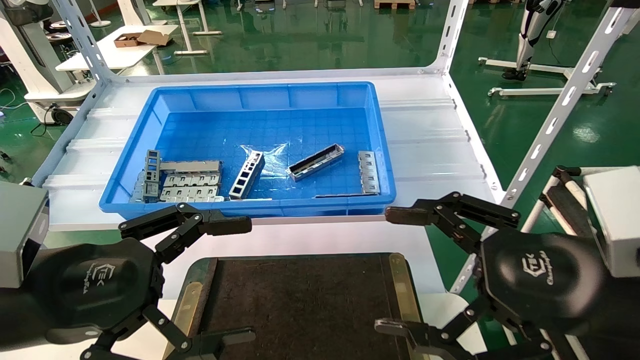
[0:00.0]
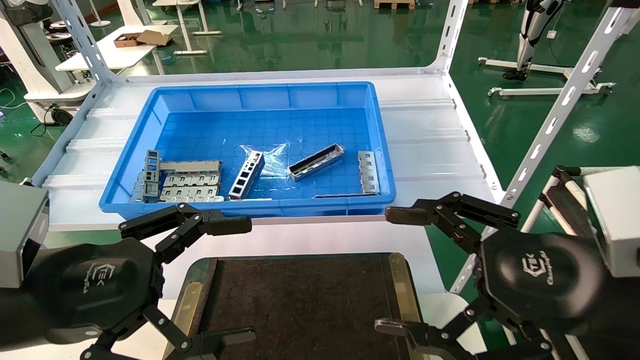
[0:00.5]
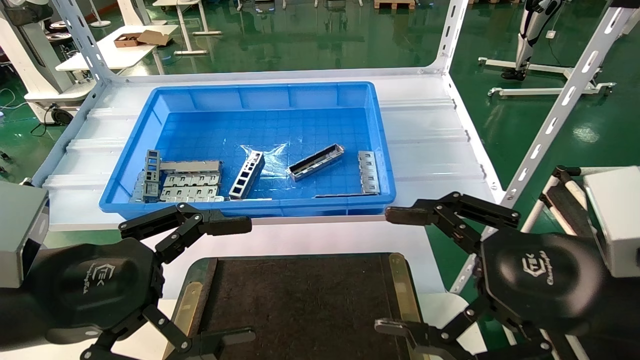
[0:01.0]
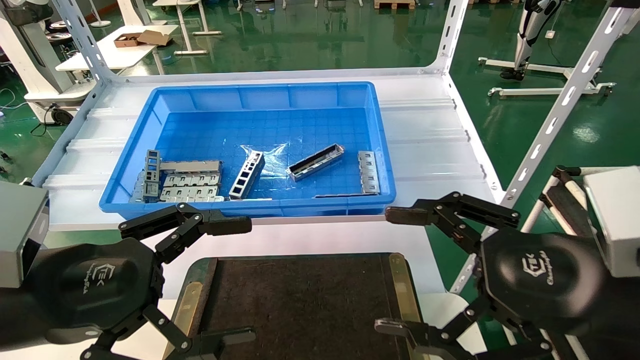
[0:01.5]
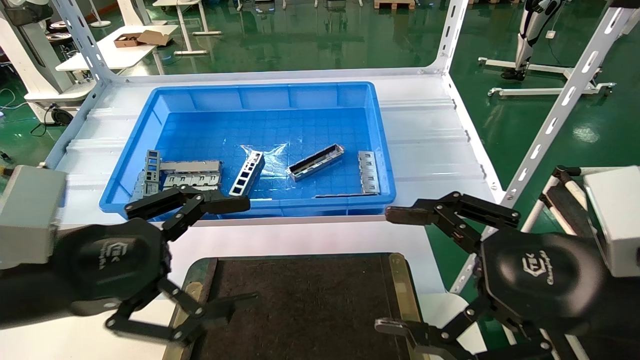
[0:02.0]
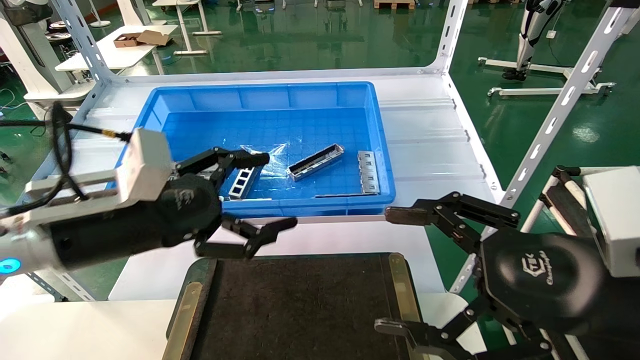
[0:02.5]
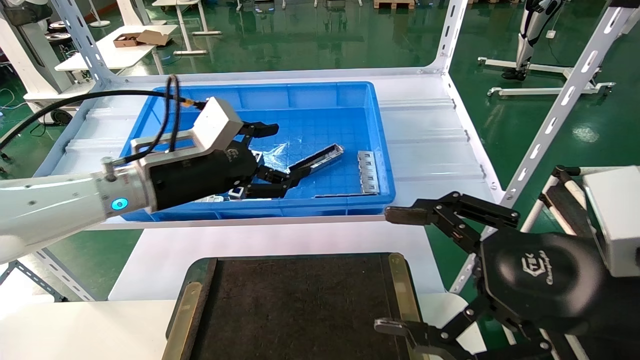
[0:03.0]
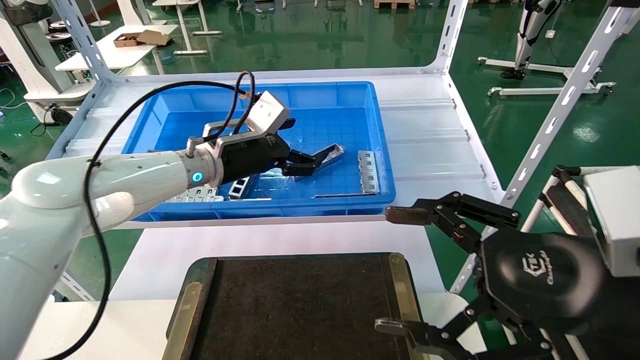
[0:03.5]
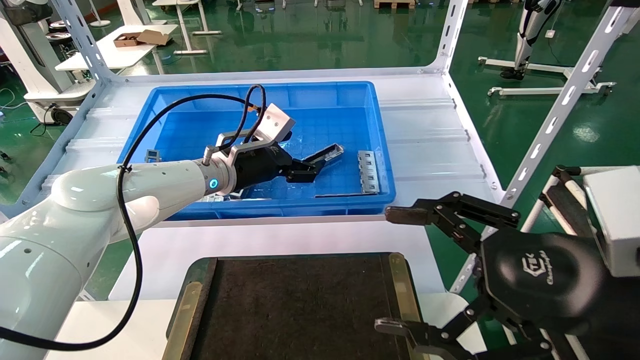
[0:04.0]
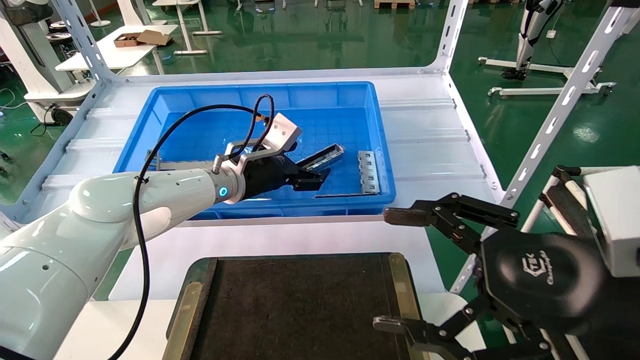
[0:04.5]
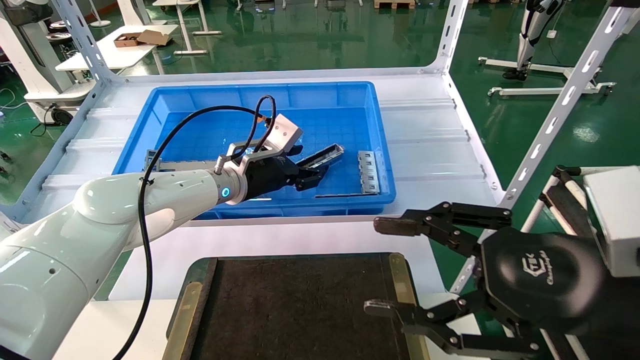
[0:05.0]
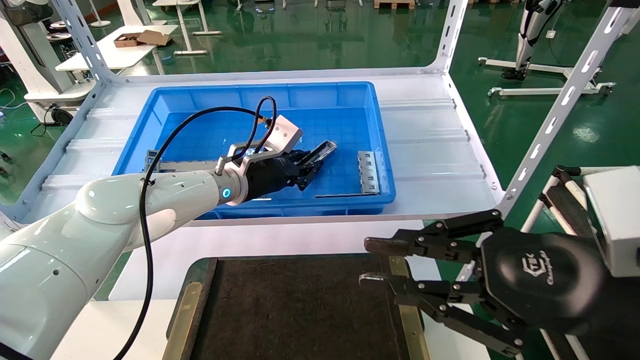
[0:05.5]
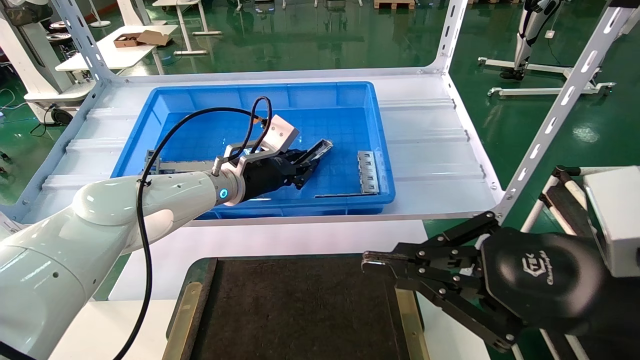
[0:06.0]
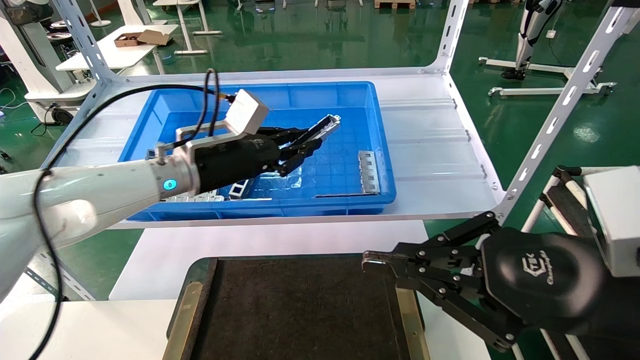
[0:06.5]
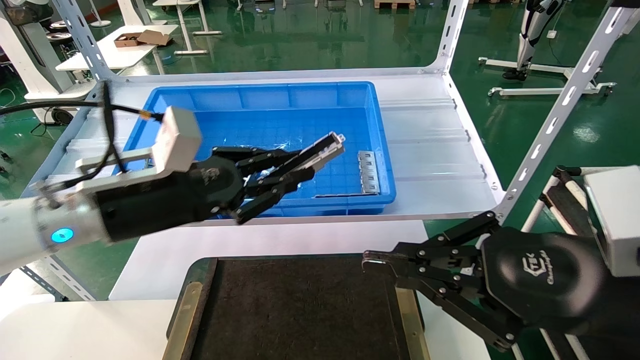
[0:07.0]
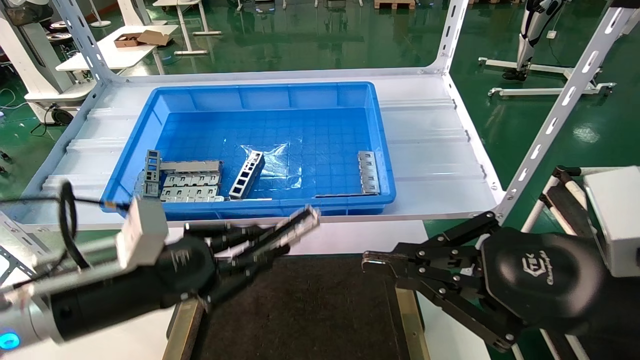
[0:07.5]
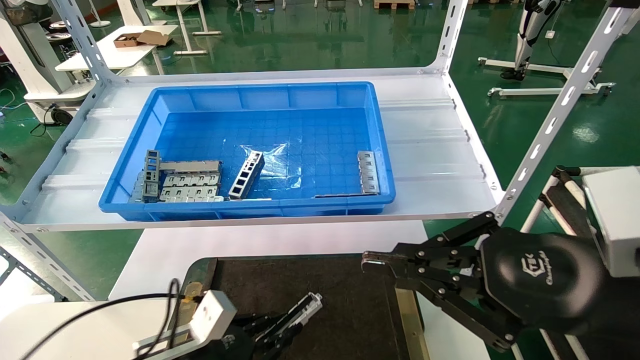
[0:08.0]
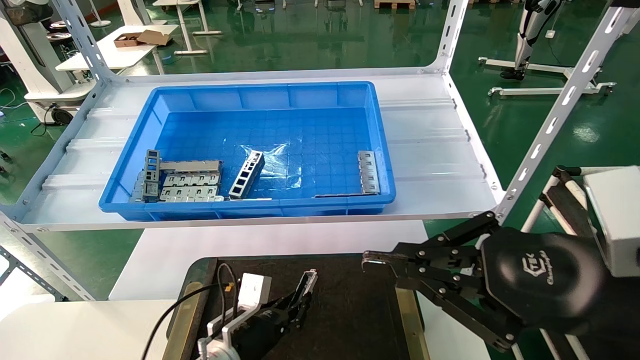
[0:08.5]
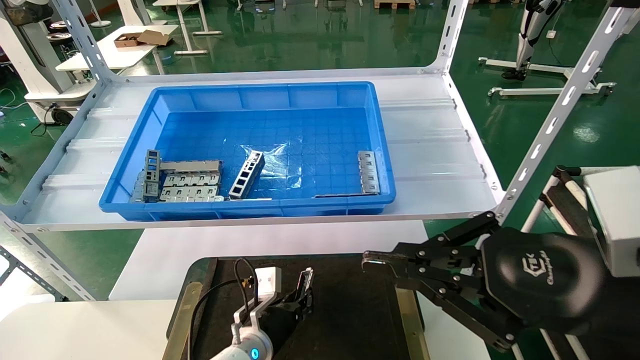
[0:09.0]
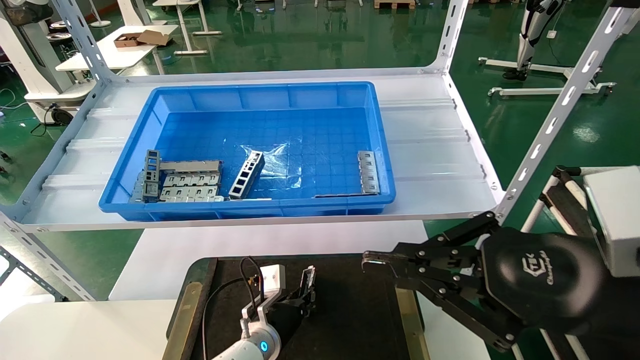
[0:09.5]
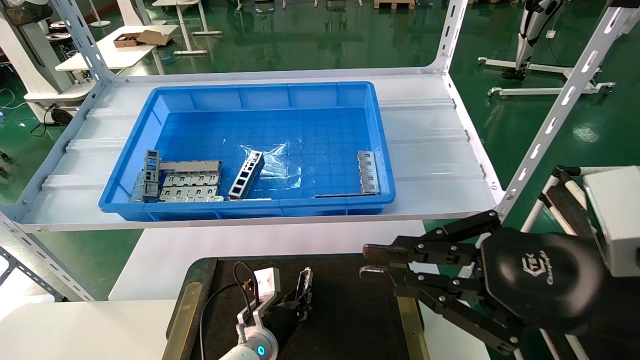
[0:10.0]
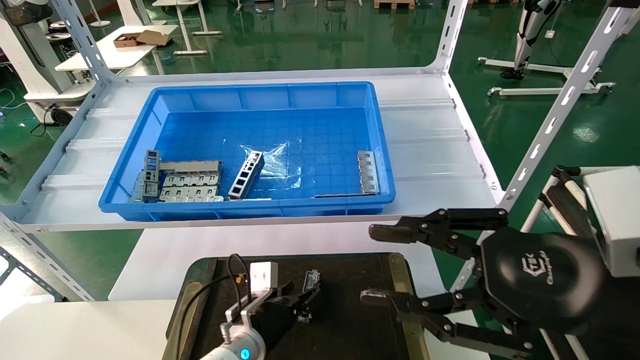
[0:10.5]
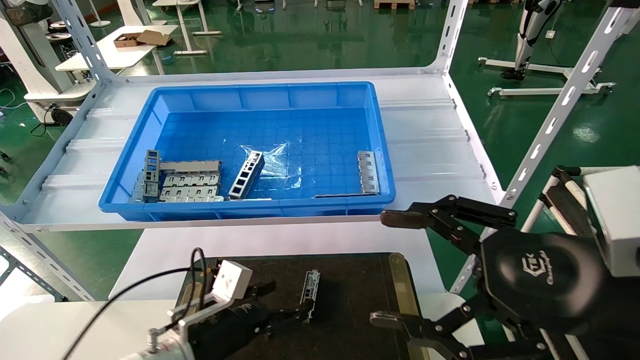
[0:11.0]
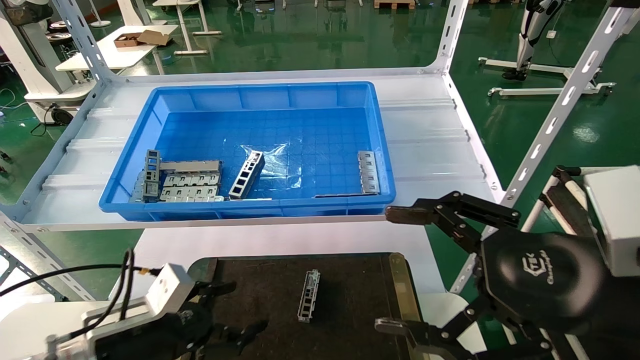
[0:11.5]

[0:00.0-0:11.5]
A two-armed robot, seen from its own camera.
Task of the whole recording: Grasp the part with one hand and place it on the black container.
Step, 0:02.0 to 0:06.5: Pick up the front USB bracket from the feeding area.
Step, 0:07.0 to 0:10.0: Place the front USB bracket into the box.
0:00.0 to 0:02.0: The grippers make only small movements.
0:02.0 to 0:04.0: The left gripper goes roughly 30 cm forward and to the right.
0:04.0 to 0:06.0: The left gripper closes up, while the right gripper closes.
0:06.0 to 0:07.5: The left gripper travels backward and to the left by about 25 cm.
0:07.5 to 0:09.5: The left gripper moves downward, forward and to the right, some 30 cm.
0:09.5 to 0:11.5: The left gripper shifts roughly 25 cm to the left, backward and upward, and opens up. Meanwhile the right gripper opens.
